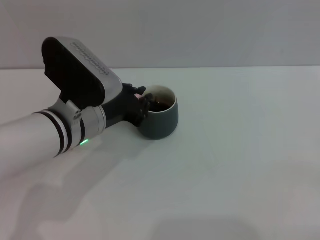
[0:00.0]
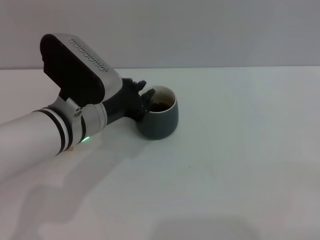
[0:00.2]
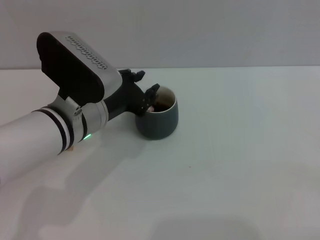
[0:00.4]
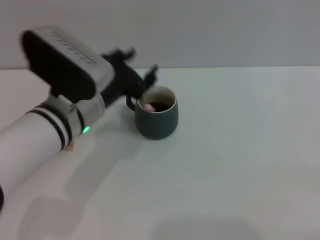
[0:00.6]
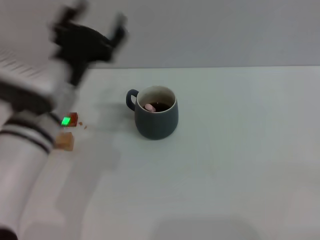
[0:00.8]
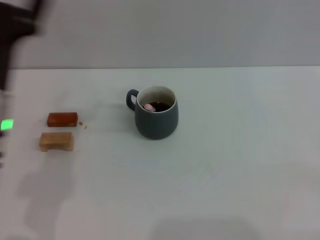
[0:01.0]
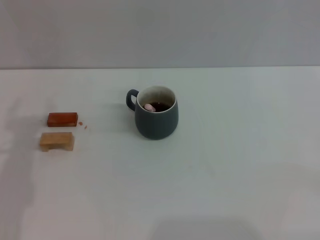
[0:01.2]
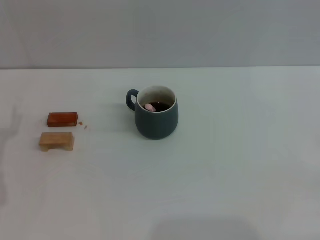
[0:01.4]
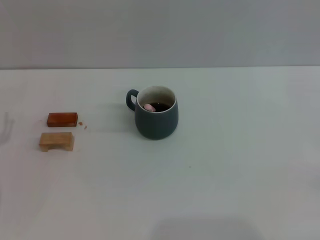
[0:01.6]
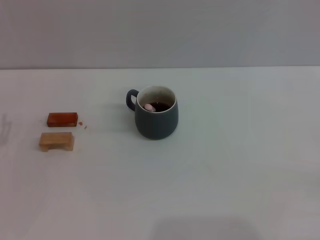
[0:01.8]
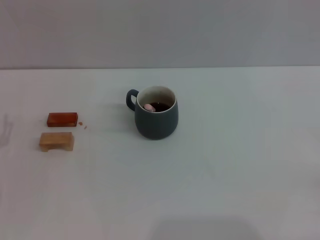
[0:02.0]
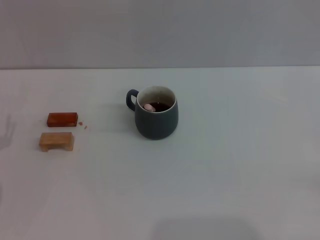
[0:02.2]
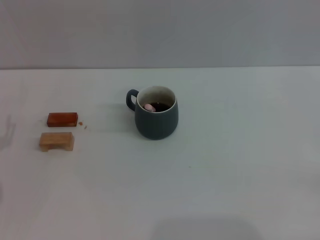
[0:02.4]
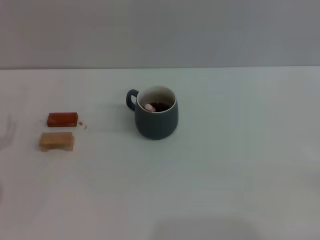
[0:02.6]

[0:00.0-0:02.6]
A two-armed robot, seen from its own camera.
Task of the whole recording: Move the grey cup to the center, lift the pink spoon, stir it three times in the cup, and put the spoon into the cup.
0:00.0 to 0:01.2: The left gripper heads to the left, covering approximately 15 cm, and opens its fingers.
